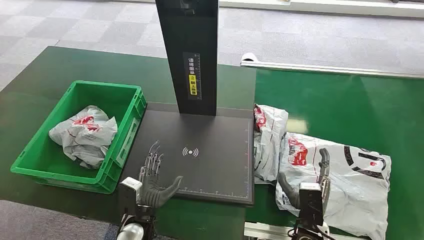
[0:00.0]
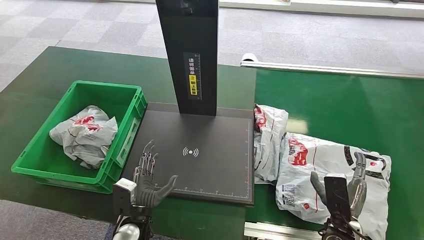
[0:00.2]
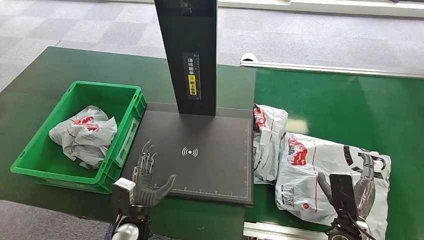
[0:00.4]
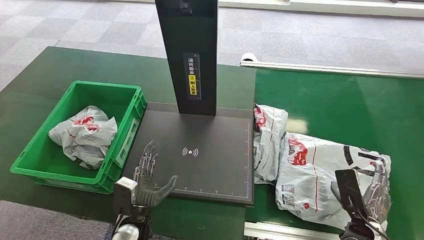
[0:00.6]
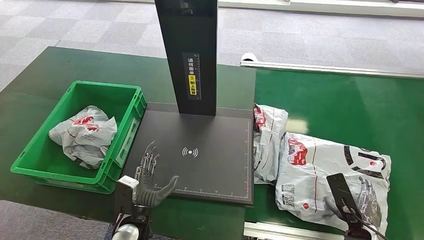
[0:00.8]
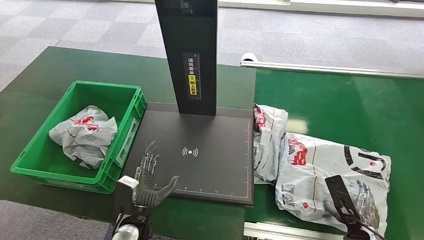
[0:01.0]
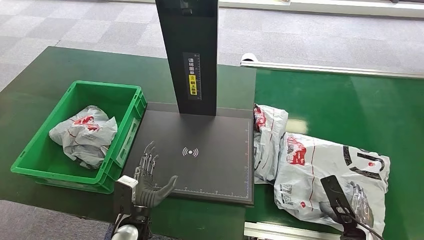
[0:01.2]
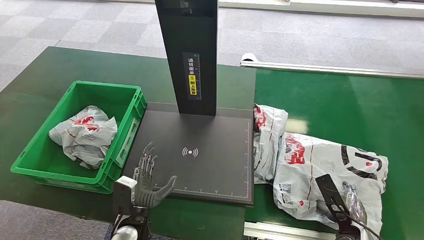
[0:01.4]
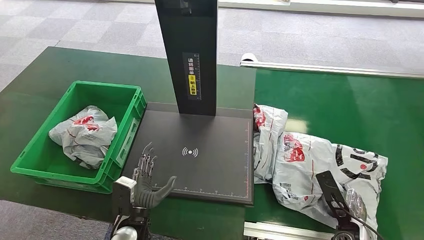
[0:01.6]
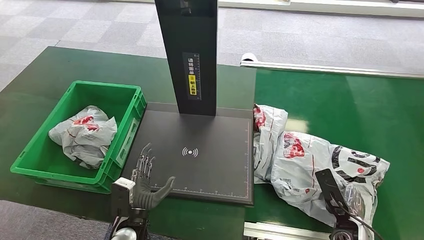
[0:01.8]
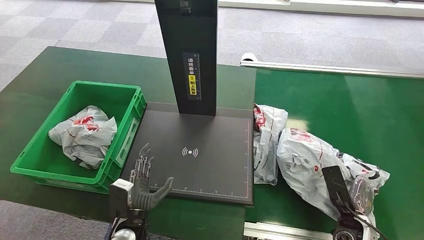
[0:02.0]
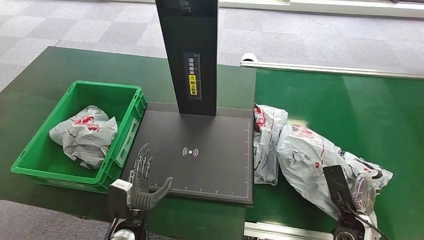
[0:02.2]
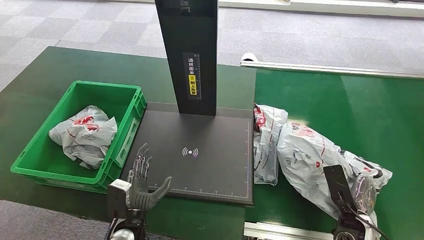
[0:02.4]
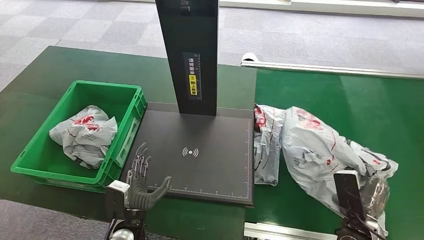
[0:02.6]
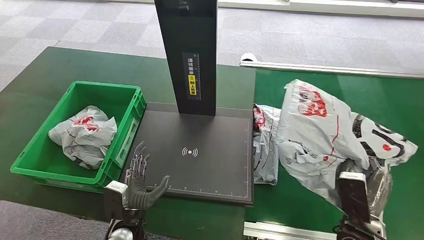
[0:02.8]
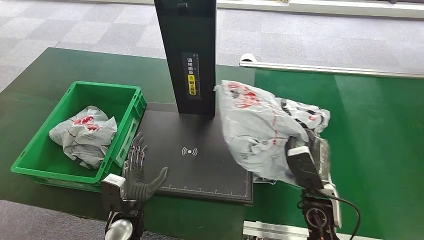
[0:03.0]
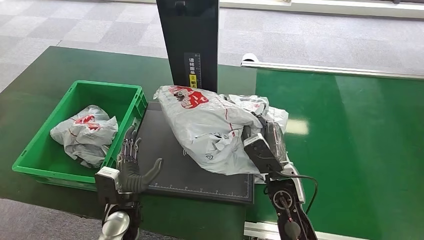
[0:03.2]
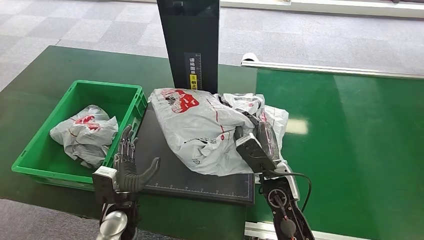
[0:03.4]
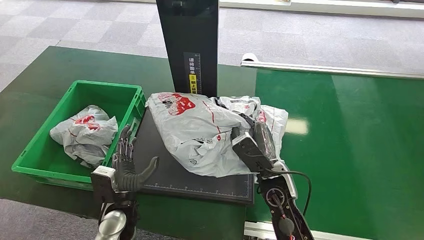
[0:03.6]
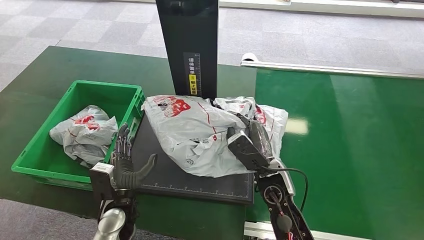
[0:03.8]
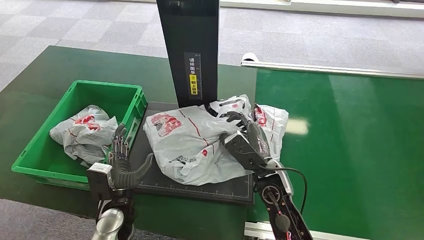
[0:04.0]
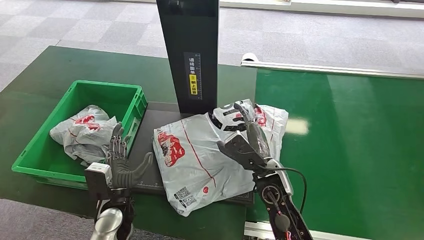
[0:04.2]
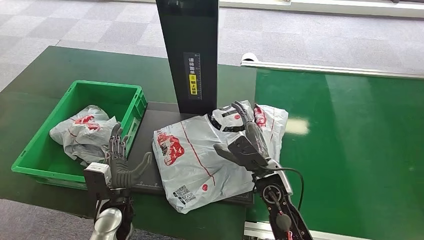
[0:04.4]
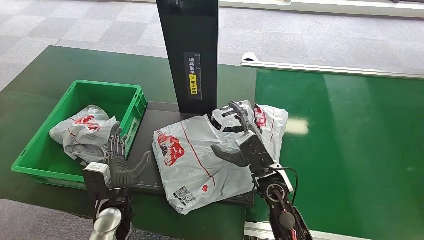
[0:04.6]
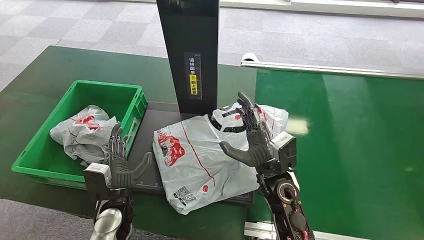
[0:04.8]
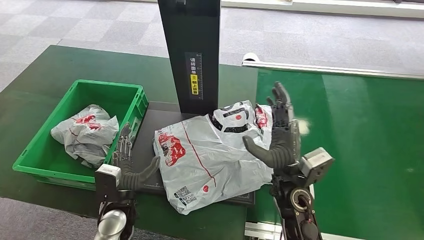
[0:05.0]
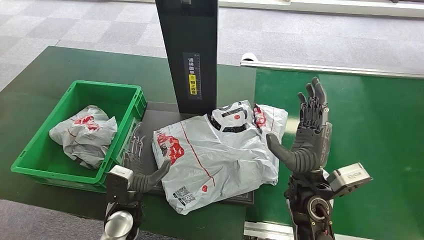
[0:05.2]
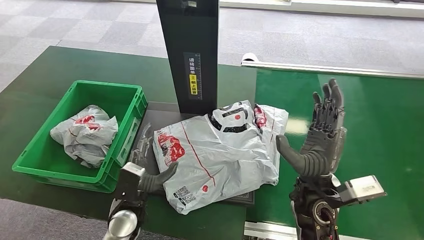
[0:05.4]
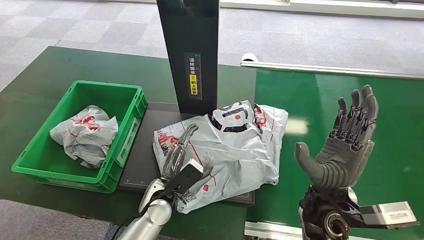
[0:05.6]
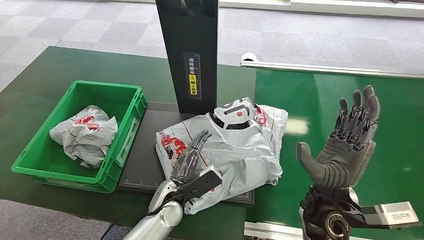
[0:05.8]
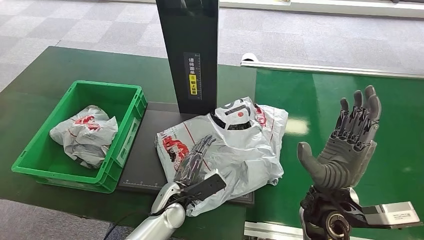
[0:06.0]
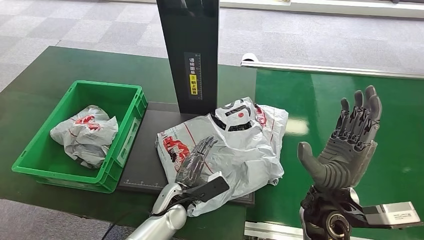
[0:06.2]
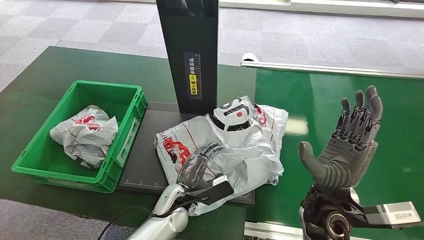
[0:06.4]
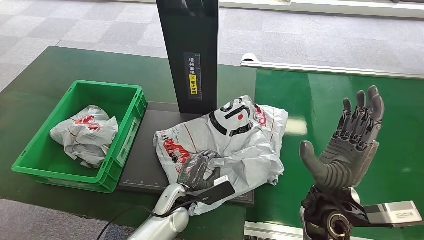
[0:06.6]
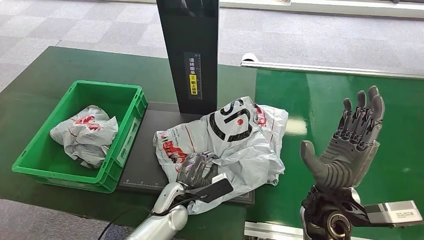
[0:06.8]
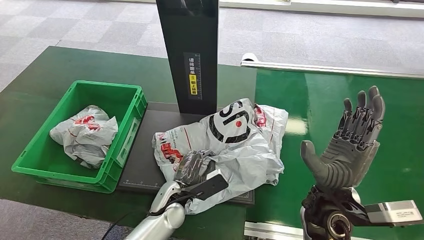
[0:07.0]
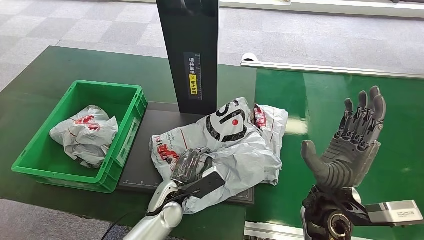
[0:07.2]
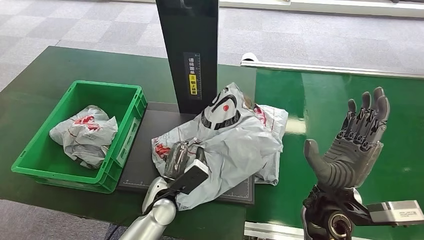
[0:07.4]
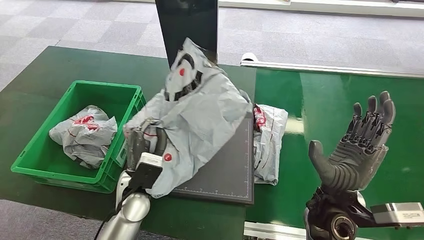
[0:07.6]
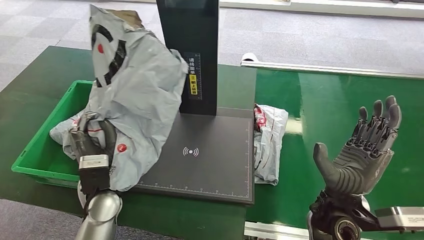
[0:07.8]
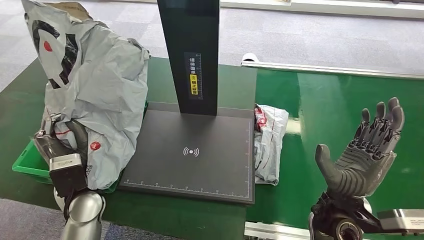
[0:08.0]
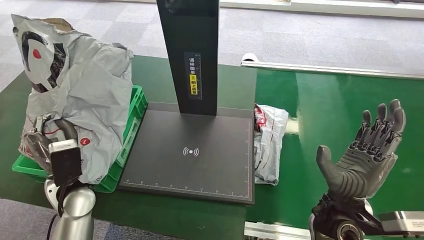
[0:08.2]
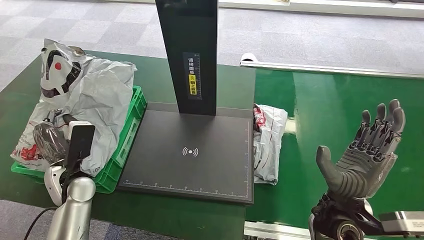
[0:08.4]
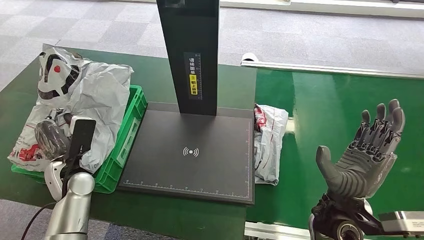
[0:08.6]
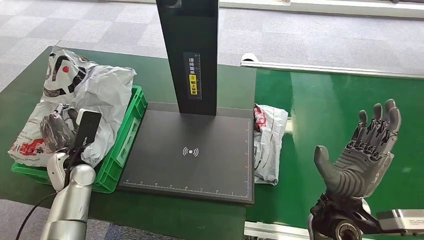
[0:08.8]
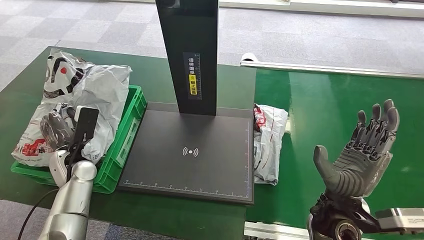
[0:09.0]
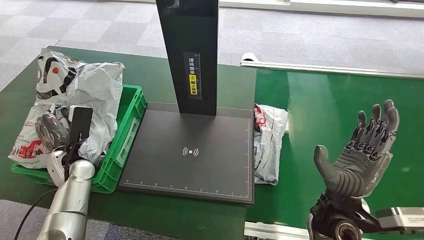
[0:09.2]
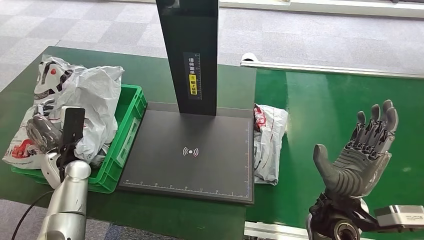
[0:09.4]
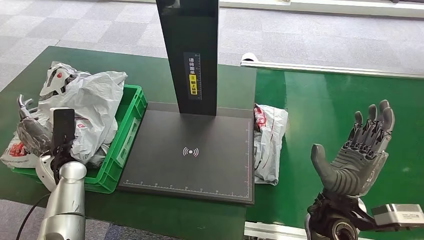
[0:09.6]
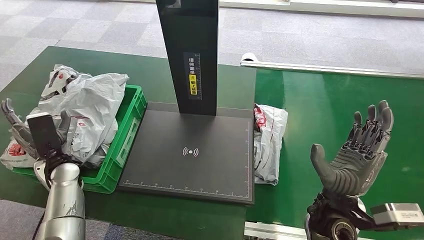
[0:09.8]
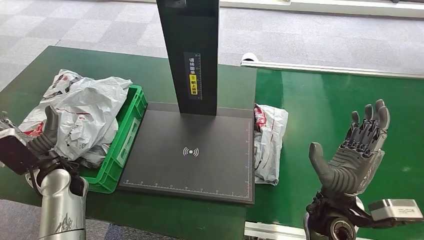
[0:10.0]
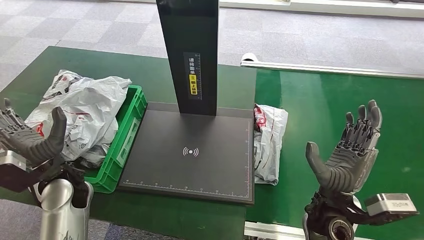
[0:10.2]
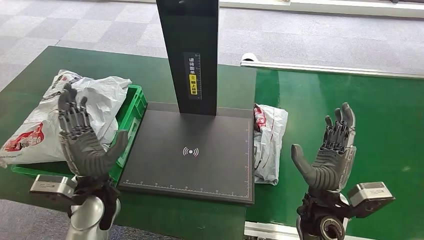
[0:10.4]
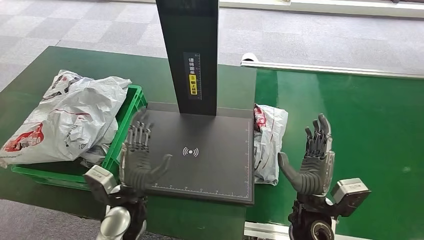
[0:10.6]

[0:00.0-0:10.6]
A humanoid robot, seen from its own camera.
Step, 0:00.0 to 0:02.6: Pick up the package from the conveyor belt.
Step, 0:03.0 to 0:05.0: Place the package onto the inbound machine.
Step, 0:05.2 to 0:07.8: Pick up the package from the inbound machine.
Step, 0:08.0 to 0:10.6: Place the package into the parcel locker.
0:04.6 to 0:06.0: The right hand is displaced to the right, upward and backward by approximately 10 cm. Meanwhile the left hand moves to the right, about 10 cm.
